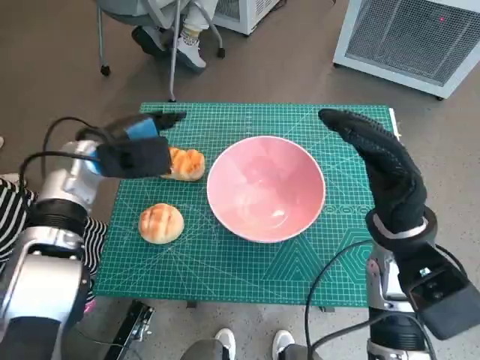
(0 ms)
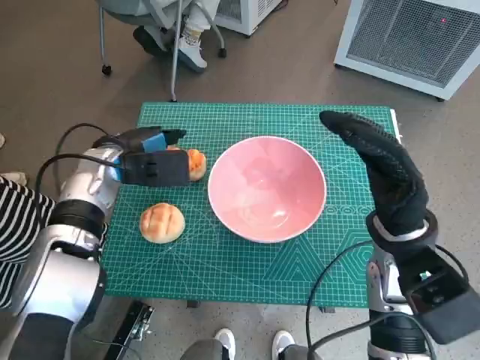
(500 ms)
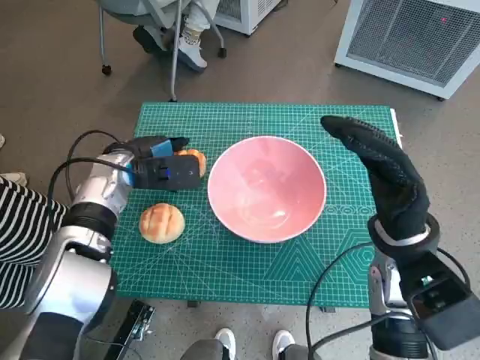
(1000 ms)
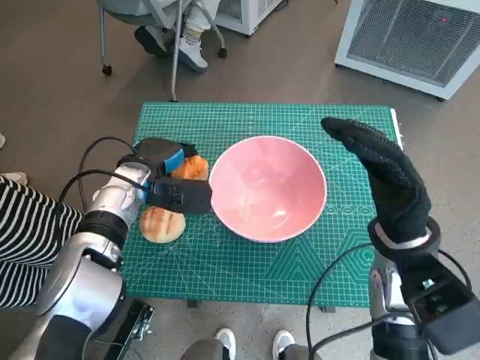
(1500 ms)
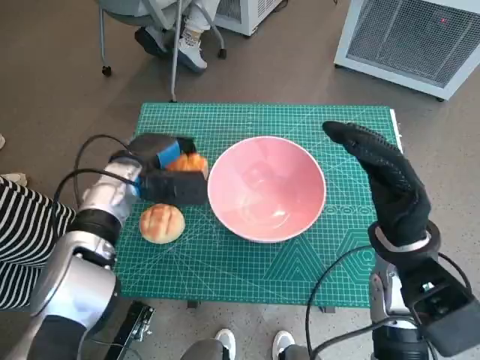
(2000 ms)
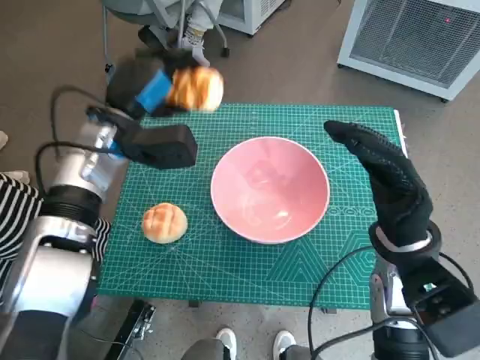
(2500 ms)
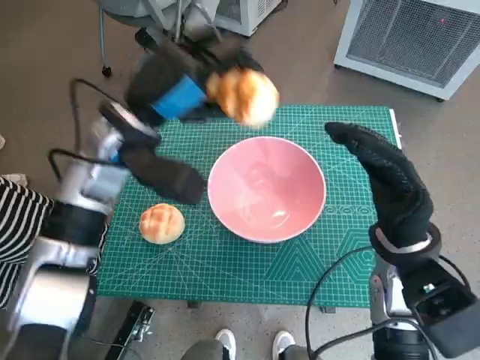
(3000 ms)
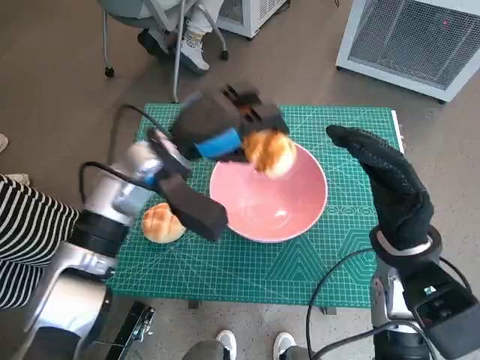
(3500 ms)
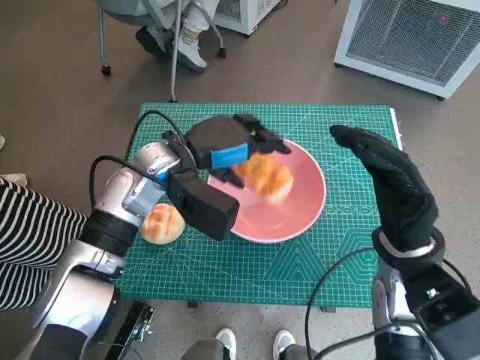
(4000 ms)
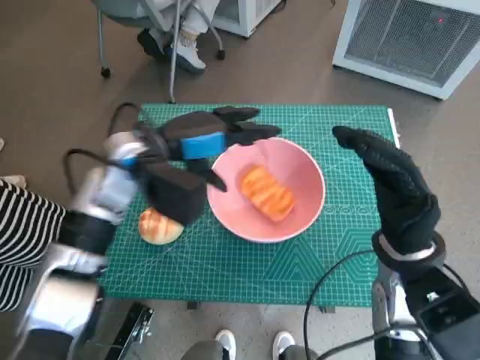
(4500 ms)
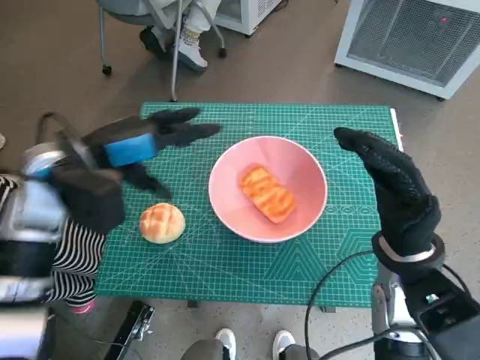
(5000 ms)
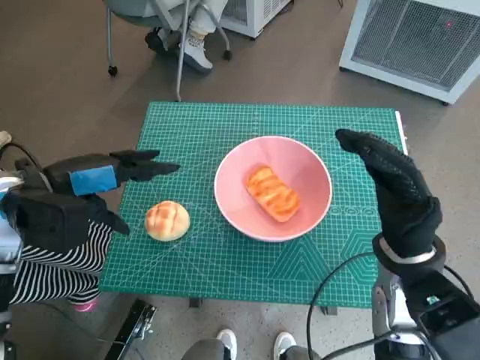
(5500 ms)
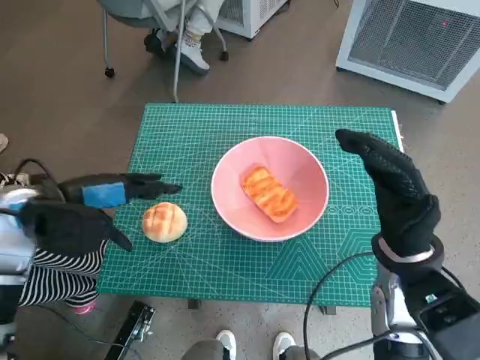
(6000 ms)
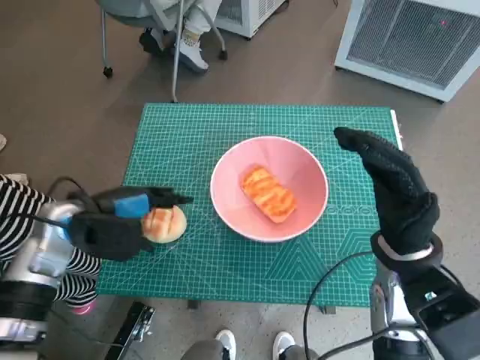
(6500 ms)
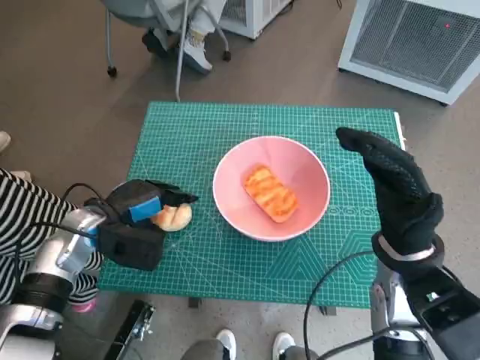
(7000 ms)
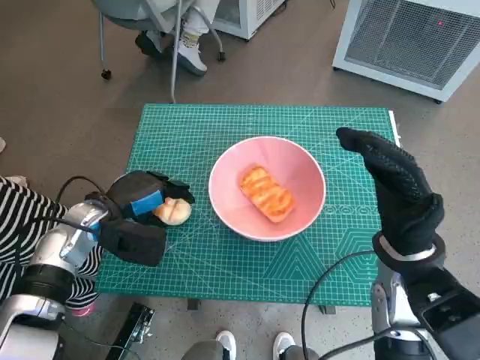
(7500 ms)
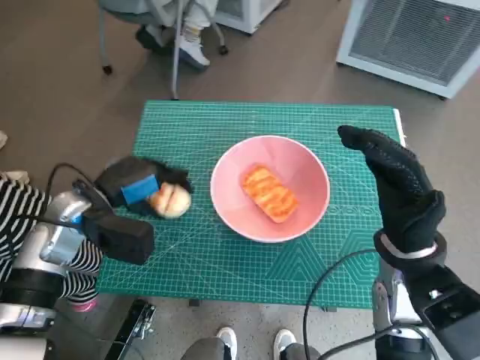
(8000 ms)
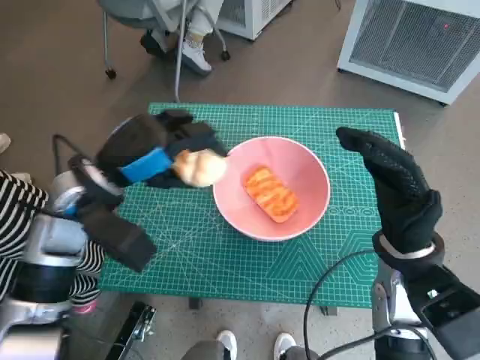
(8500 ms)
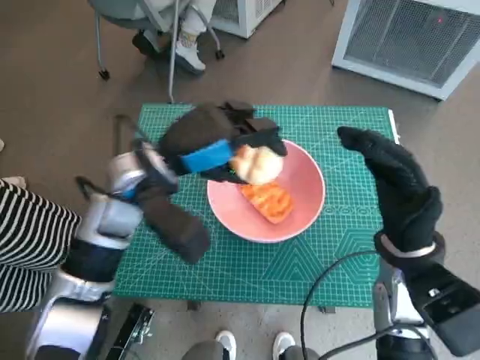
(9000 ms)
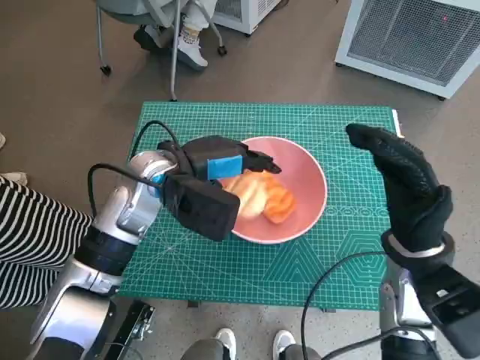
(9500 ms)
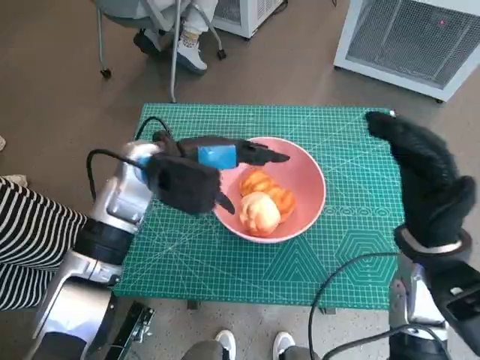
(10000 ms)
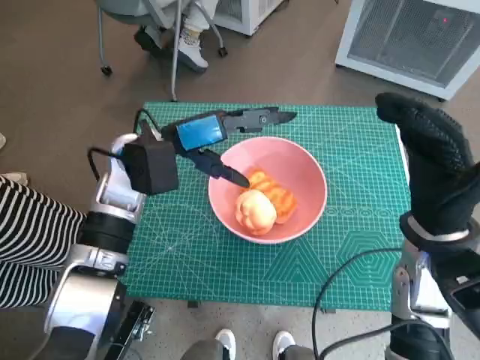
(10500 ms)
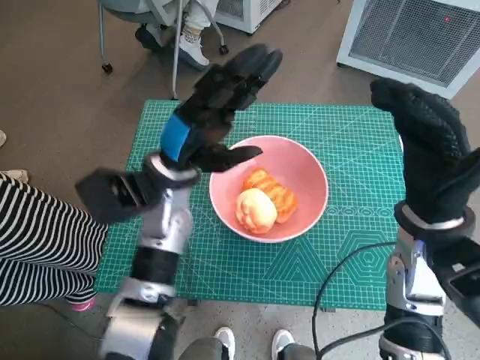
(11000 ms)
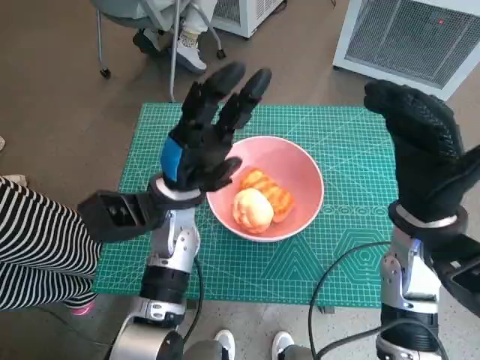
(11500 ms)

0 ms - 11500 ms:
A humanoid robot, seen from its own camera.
Task of the whole recording: Push the bowl into the center of the table and put the bread into the bowl.
Step, 2000 ms - 4500 ms: Place the long bread in pink bowl with left hand.
Step, 5000 ms - 7000 ms: Grasp the round bread with left hand.
Step, 7500 ms - 10000 ms: Place the round bread in pink bowl with left hand.
0 ms - 2000 ms: The left hand shifts approximately 5 cm downward.
2000 ms - 4000 ms: The left hand is displaced to the right and upward by about 10 cm.
4000 ms - 6000 ms: The left hand travels to the left and backward by some 15 cm.
6000 ms - 7500 ms: The left hand shifts some 10 cm downward.
7500 ms - 9500 ms: The left hand shifts about 15 cm to the right and upward.
9500 ms - 11500 ms: The left hand changes place by roughly 5 cm.

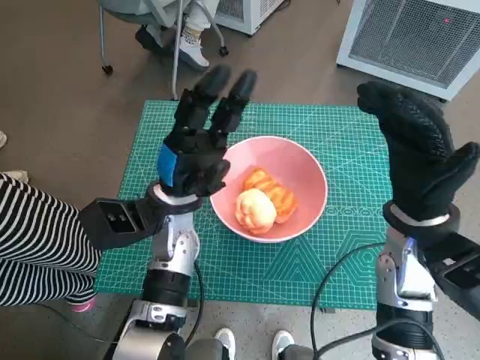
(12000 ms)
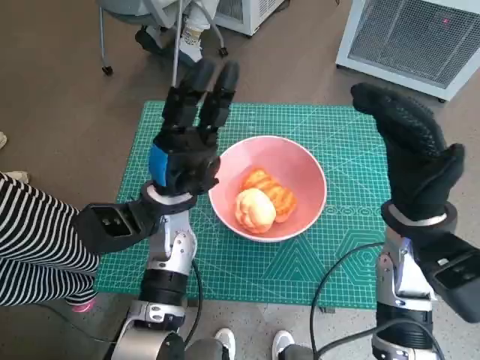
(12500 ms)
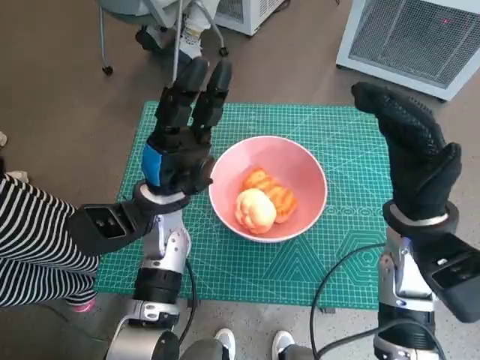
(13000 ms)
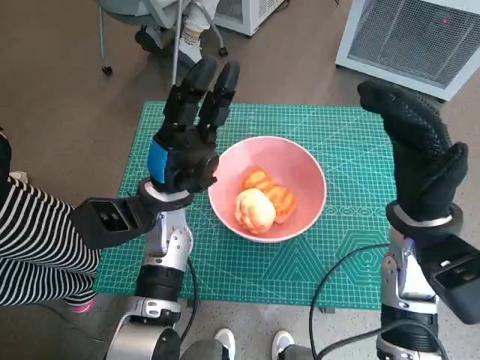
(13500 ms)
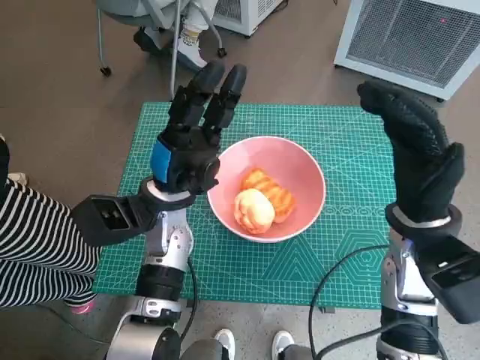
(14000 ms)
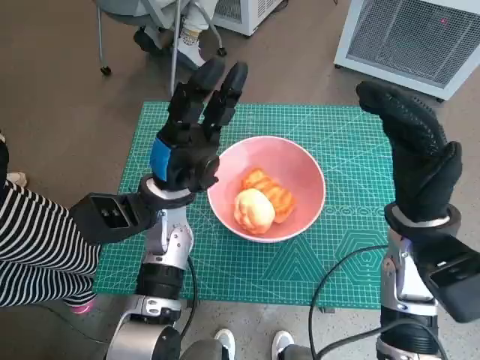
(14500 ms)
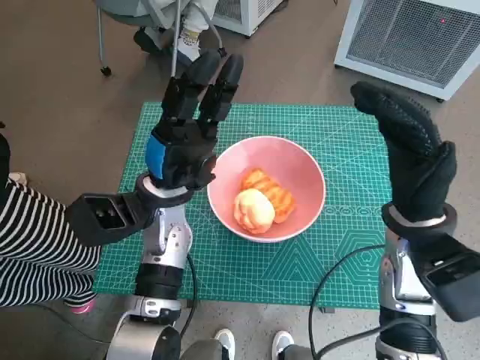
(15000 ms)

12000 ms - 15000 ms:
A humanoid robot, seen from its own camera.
Task of the whole recording: Push the bowl into the center of the table and put the bread into the bowl.
12000 ms - 13500 ms: There are only small adjustments of the hands.
13500 ms - 15000 ms: Neither hand changes place.
